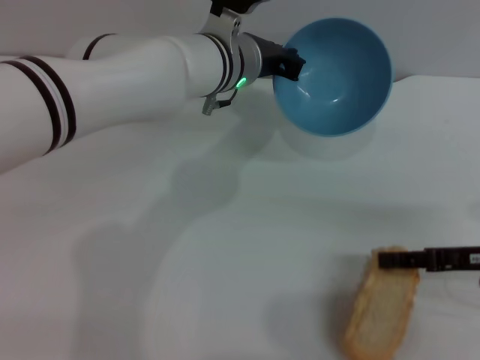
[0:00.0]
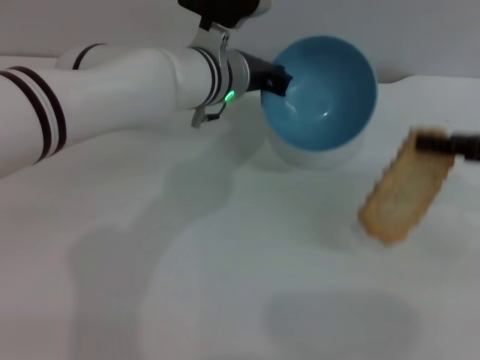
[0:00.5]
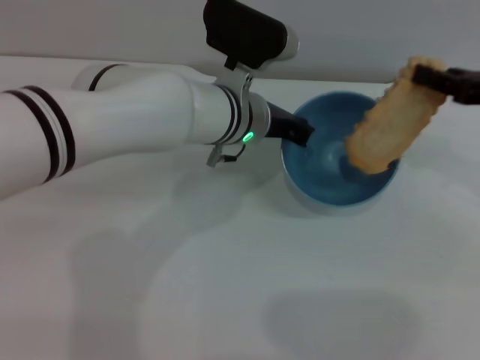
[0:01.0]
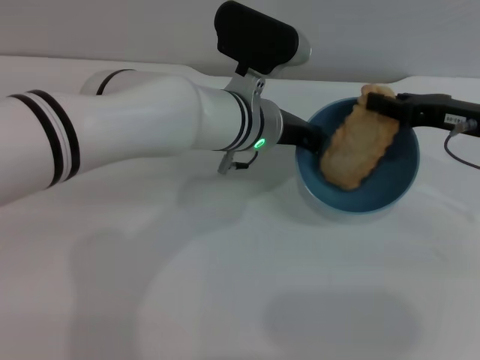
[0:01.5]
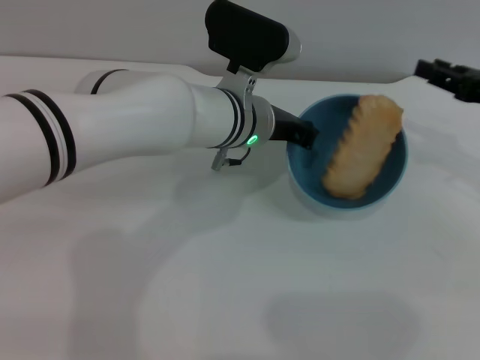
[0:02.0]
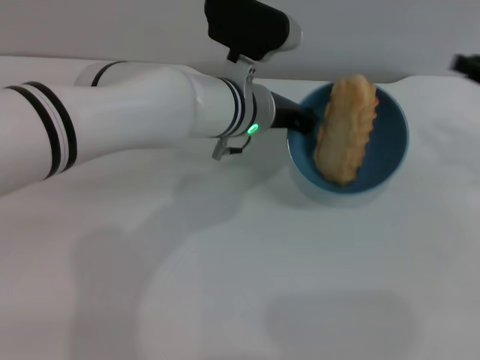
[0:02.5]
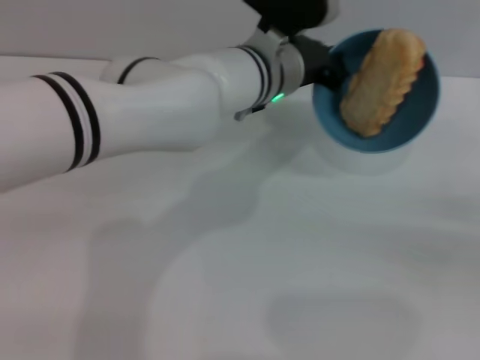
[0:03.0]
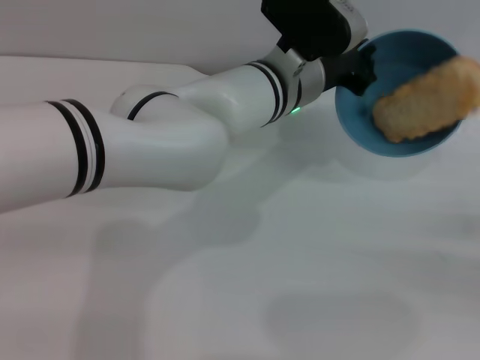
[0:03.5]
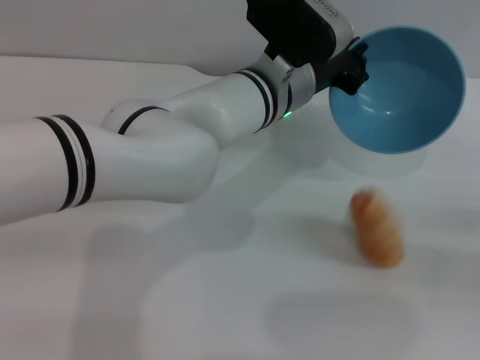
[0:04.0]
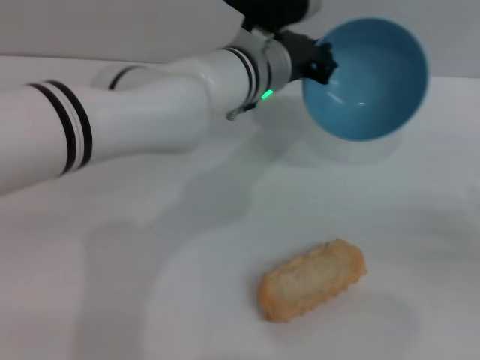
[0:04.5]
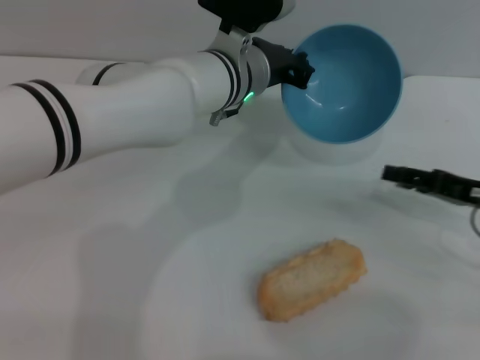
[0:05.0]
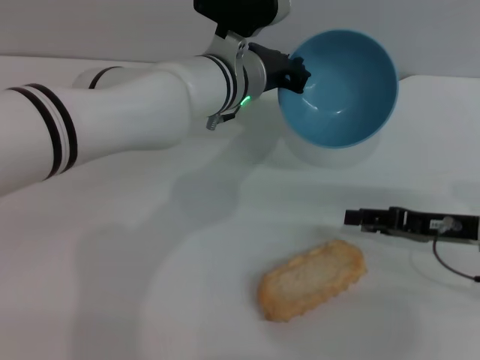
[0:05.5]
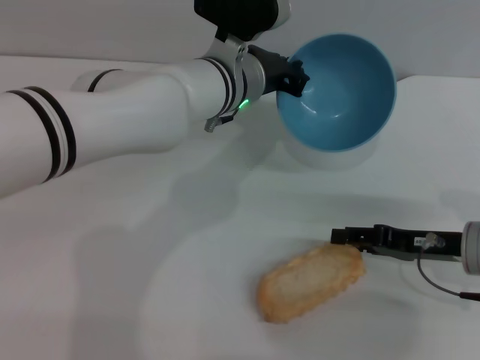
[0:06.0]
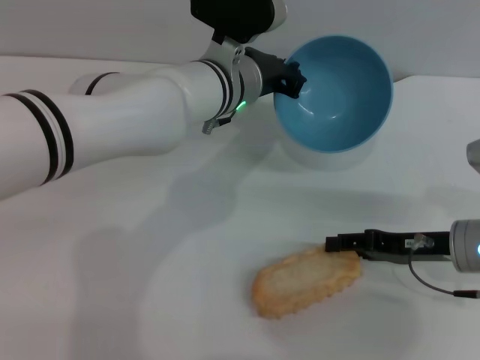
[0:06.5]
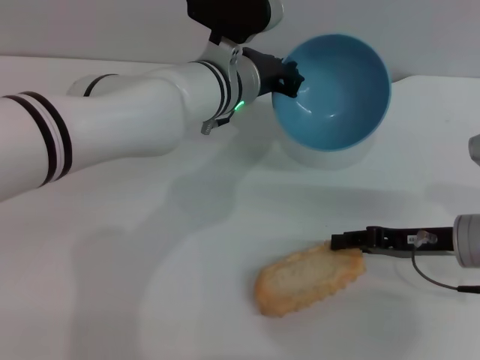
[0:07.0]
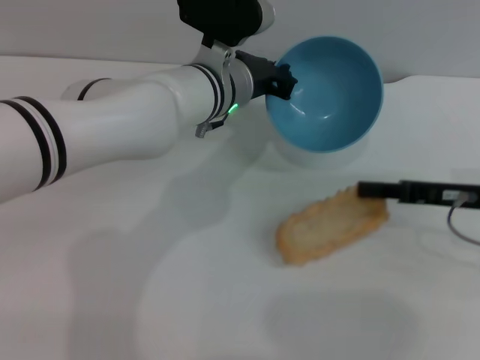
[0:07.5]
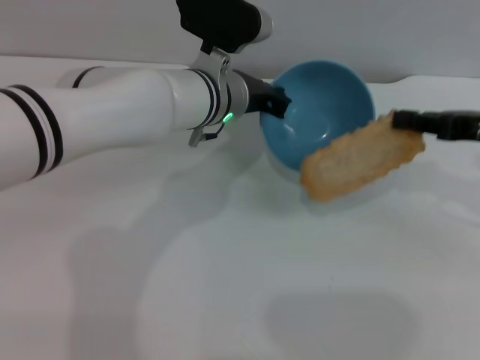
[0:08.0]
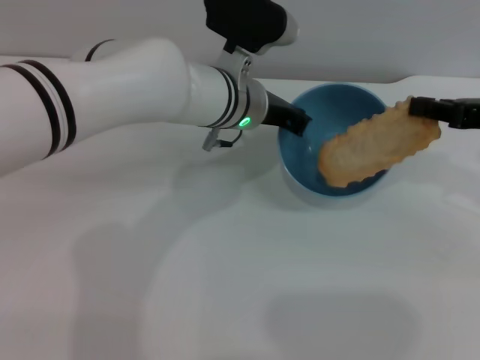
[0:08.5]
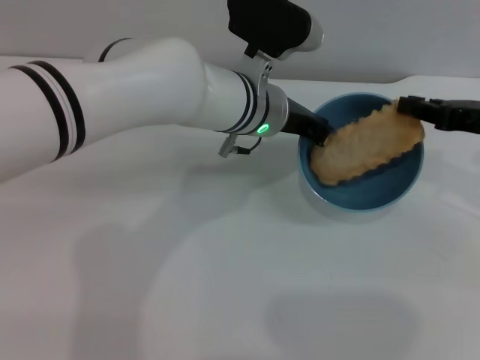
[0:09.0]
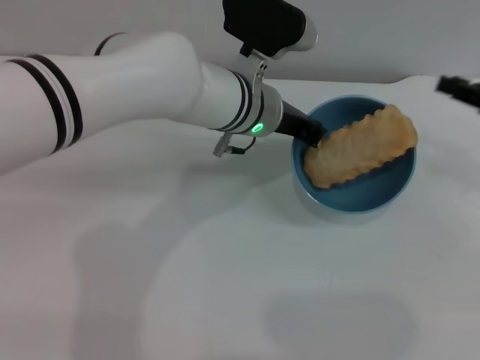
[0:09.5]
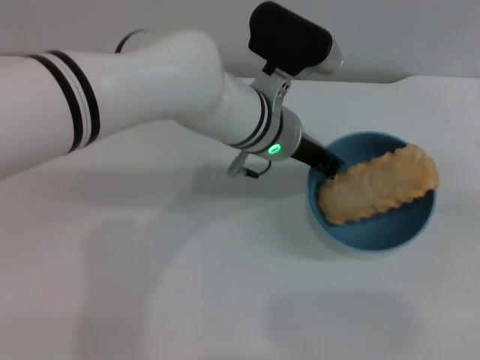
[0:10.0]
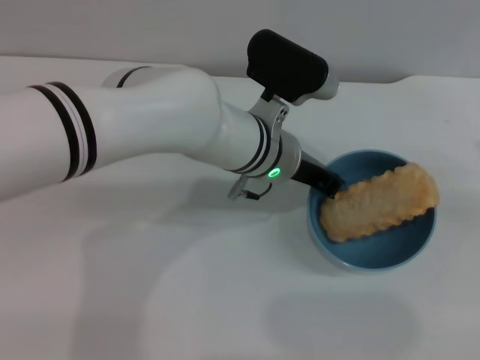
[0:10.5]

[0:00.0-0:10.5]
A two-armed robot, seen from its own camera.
Task of the whole recording: put the bread into the blue bowl and pour it out repeatedly.
Step, 0:01.0 to 0:02.5: Place the bread into the bowl.
Step, 0:03.0 to 0:04.0: Pour the bread out of the bowl.
Step, 0:05.0 to 0:07.5: Pick up the bread with the right gripper.
Step, 0:08.0 to 0:09.5: Place the bread into the bowl.
0:00.0 to 0:02.0: The right gripper travels upward and forward by roughly 10 cm. The left gripper shifts by some 5 cm.
0:02.0 to 0:04.0: The right gripper moves backward, to the right and downward, approximately 15 cm.
0:04.0 to 0:06.5: The right gripper is displaced to the left and forward by some 15 cm. The left gripper ends up some 5 cm from where it was.
0:06.5 to 0:08.5: The right gripper goes about 15 cm upward and to the right, and closes.
0:08.5 to 0:10.5: The left gripper changes place by approximately 5 cm; the right gripper goes about 10 cm to the right and backward, and opens up.

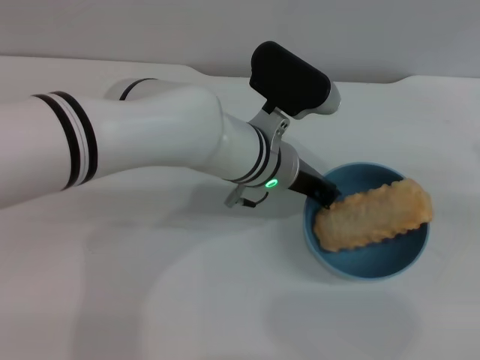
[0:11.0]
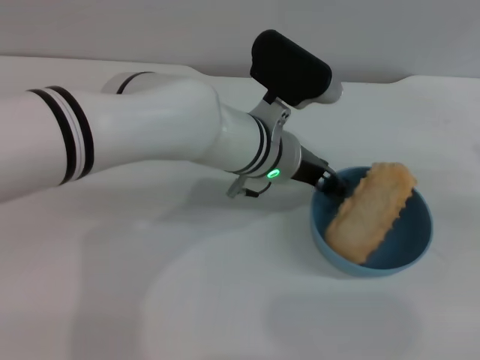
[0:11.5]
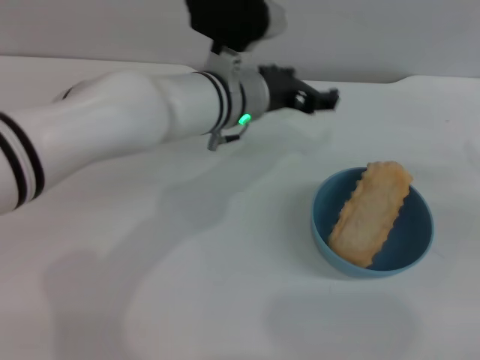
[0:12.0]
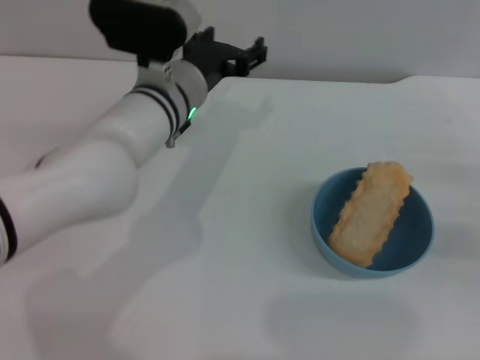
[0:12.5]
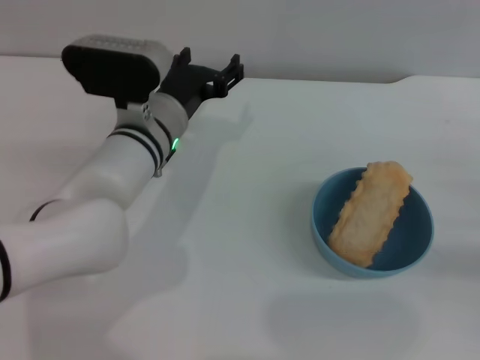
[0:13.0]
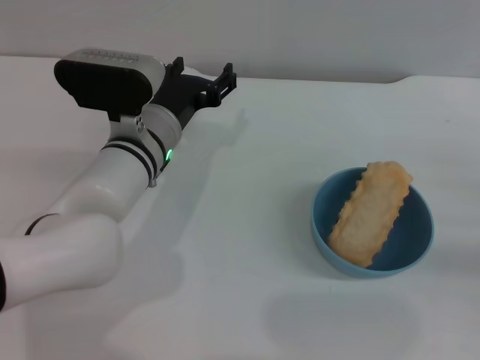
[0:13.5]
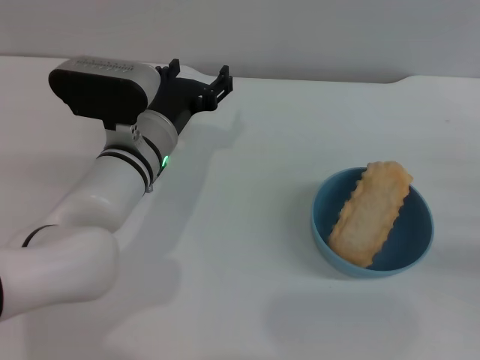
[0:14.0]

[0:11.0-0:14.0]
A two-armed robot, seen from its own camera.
Task of the whole recording: put the bread into the blue bowl and pour it out repeatedly.
0:11.0 to 0:12.5: The left gripper moves to the left, some 10 cm, and opens. The right gripper goes about 5 cm downward, and opens its fingers.
0:12.5 to 0:14.0: The left gripper ends up about 5 cm from where it was.
